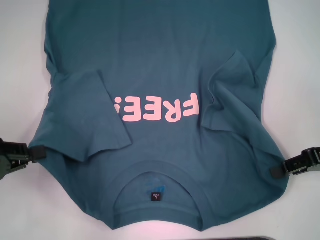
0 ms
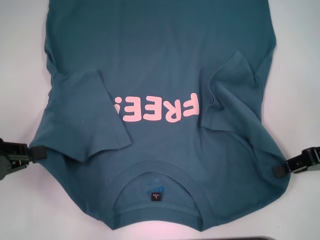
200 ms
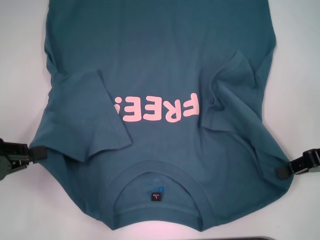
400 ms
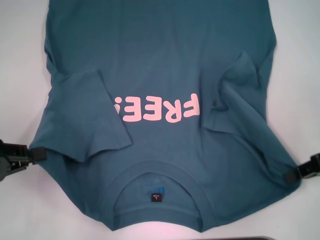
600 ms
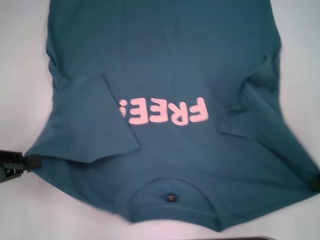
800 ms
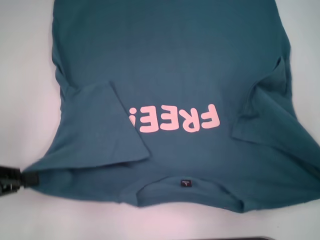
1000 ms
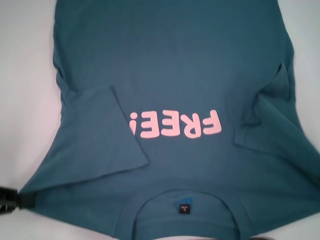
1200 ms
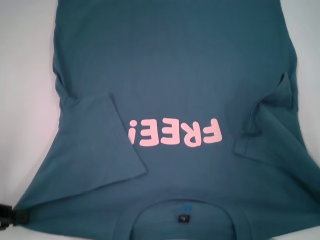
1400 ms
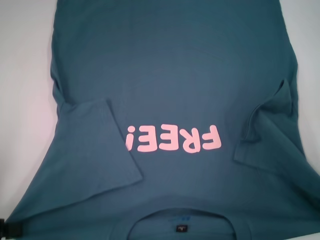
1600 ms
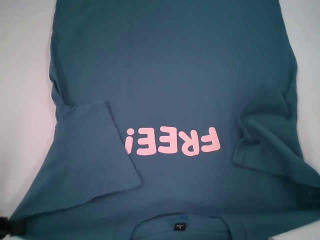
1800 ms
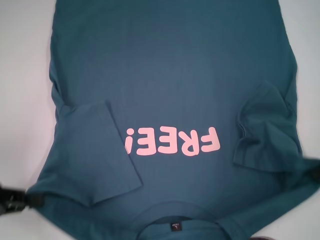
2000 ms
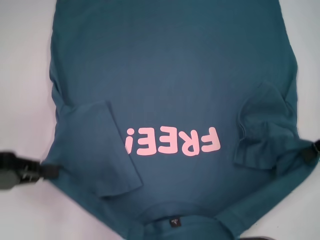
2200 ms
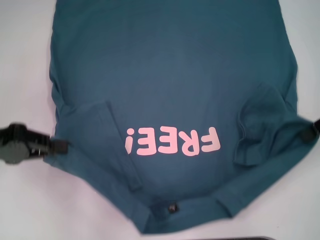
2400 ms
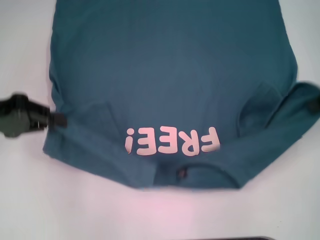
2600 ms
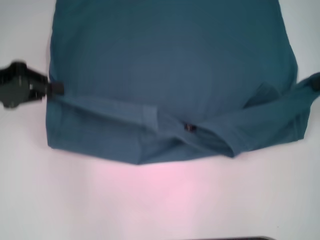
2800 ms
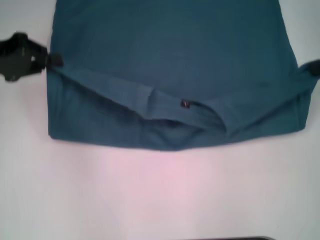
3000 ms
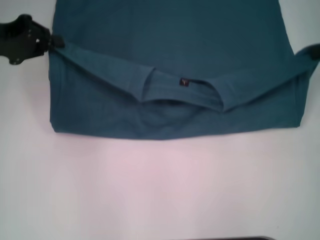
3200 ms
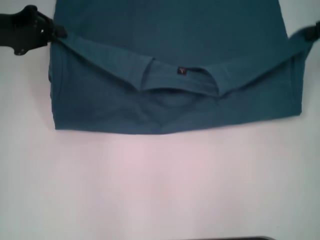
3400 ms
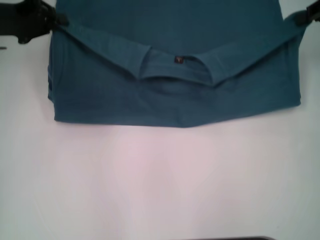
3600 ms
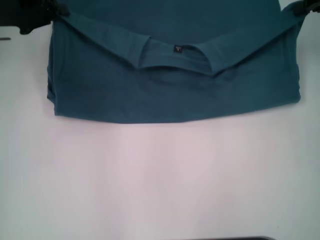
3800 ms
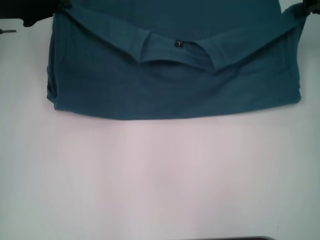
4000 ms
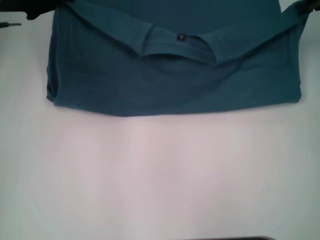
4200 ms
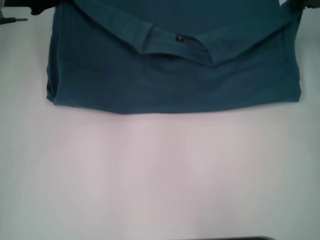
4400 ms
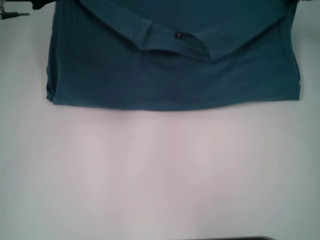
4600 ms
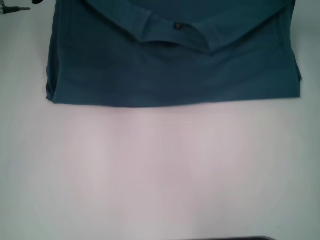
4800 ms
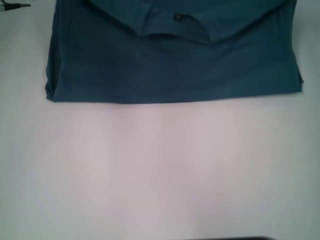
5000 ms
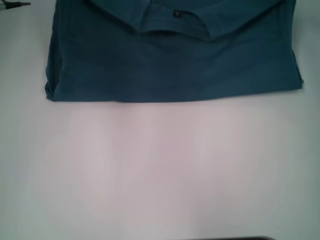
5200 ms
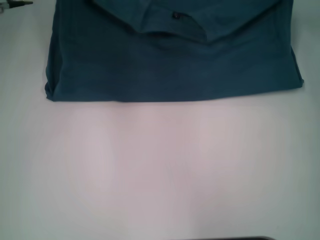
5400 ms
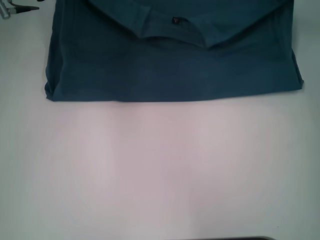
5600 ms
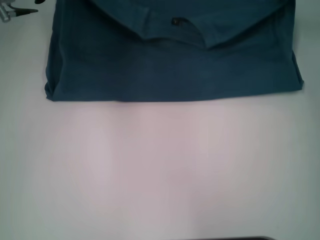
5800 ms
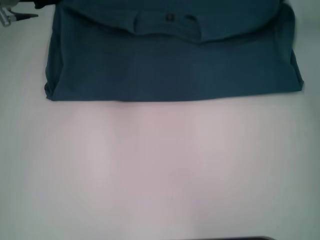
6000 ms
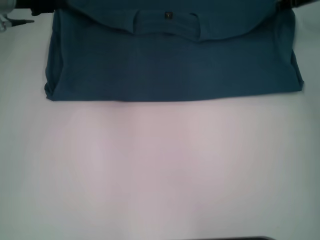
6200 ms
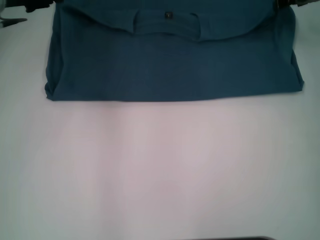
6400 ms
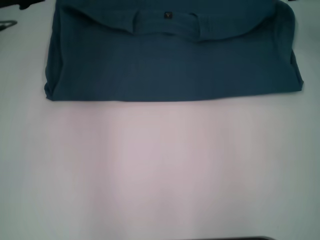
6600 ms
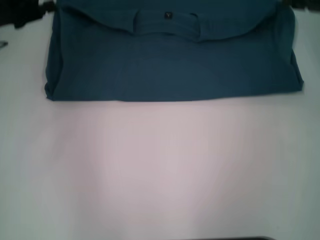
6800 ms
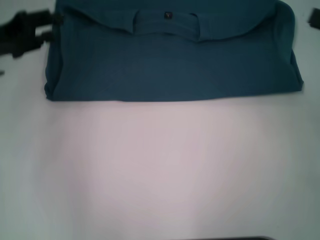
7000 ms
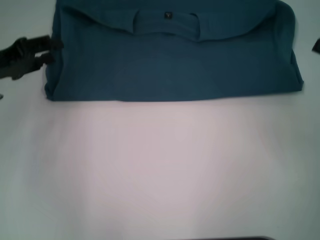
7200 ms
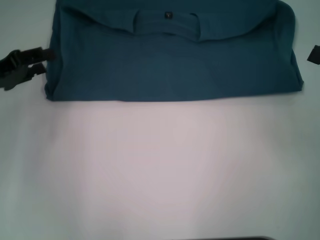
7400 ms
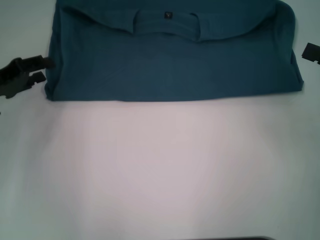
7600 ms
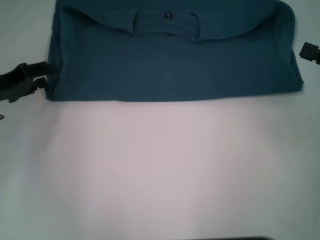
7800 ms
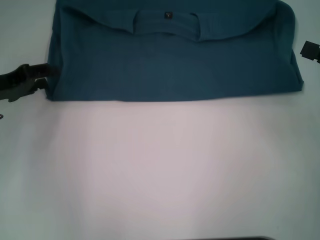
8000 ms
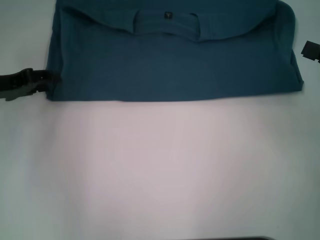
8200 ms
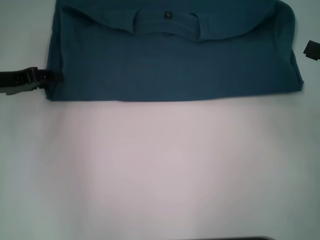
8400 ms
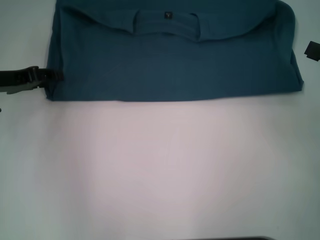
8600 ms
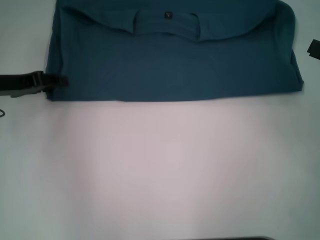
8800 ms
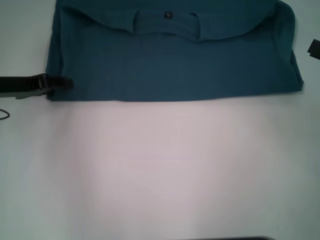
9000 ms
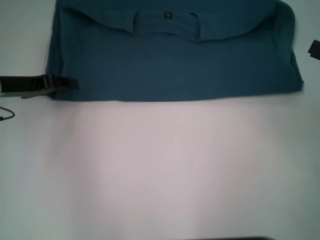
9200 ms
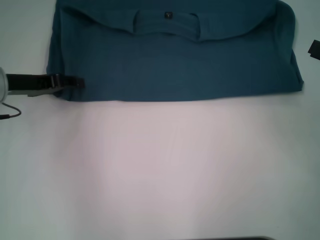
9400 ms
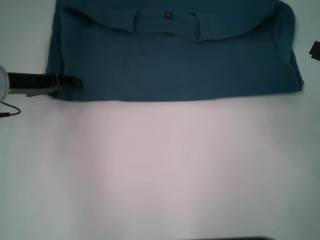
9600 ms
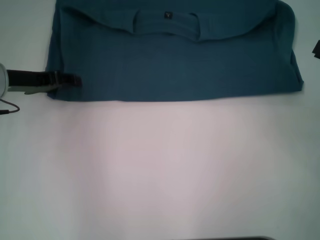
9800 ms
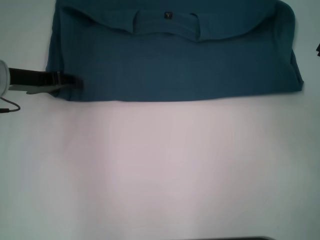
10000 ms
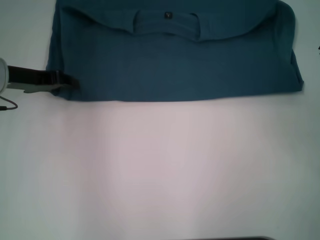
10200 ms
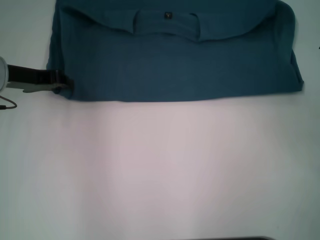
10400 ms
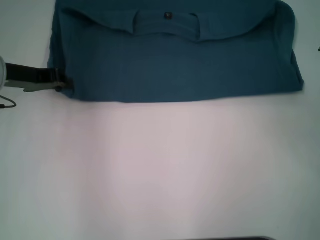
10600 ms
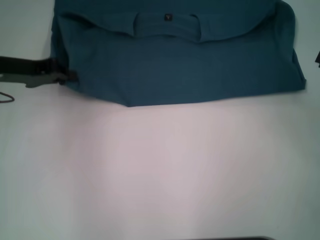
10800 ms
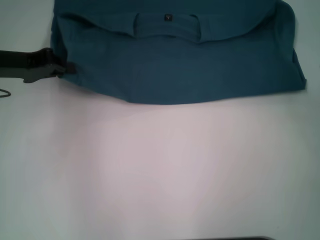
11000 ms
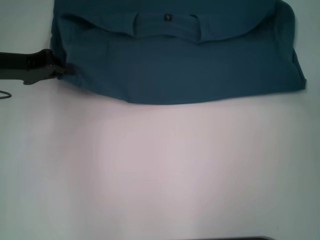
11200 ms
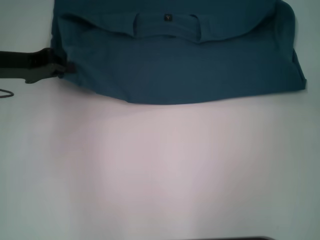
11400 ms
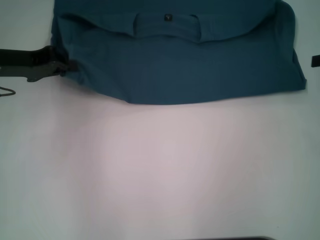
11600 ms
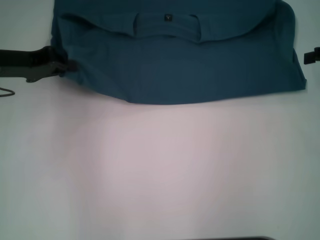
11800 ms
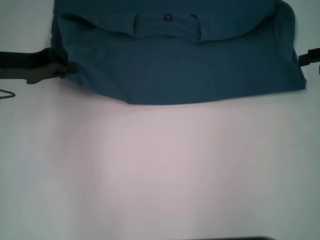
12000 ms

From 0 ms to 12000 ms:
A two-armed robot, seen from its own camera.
Step, from 800 ms to 6600 ms: Fold the clothes to the left.
Step, from 800 ms to 6600 ms: Fold the clothes to the right.
From 0 ms to 1600 ms: The left gripper shifts roughly 5 cm backward, while the right gripper ends up some 5 cm from where it was, and closes its fingers.
From 1600 ms to 3000 ms: Both grippers travel together forward and upward, roughly 20 cm.
From 3000 ms to 4400 ms: The right gripper moves forward, some 5 cm. Meanwhile the left gripper goes some 10 cm forward and to the right.
From 4400 ms to 6000 ms: The right gripper moves roughly 5 cm.
From 6000 ms to 7600 ms: The right gripper goes roughly 20 cm backward, and opens; the left gripper moves backward, downward and to the left, roughly 20 cm, and opens up.
From 9000 ms to 10400 ms: There are only small adjustments of the grippers.
From 10400 ms to 12000 ms: The right gripper is displaced forward by some 10 cm.

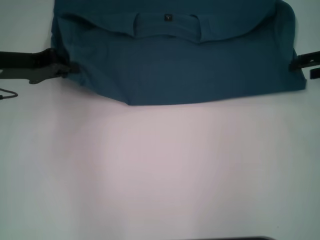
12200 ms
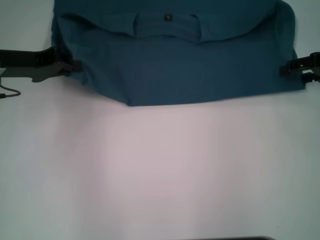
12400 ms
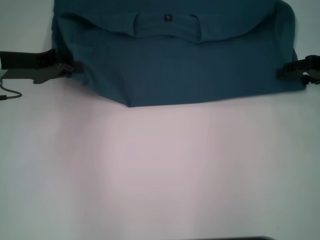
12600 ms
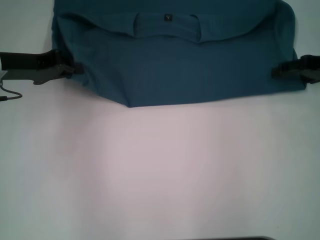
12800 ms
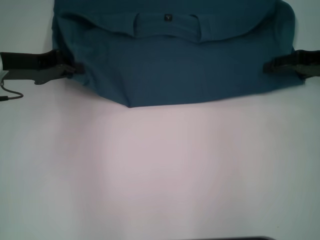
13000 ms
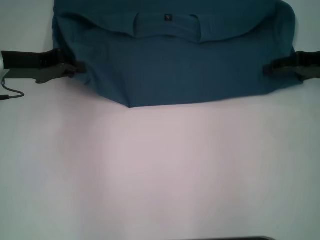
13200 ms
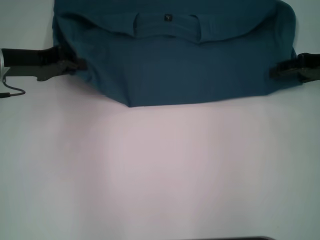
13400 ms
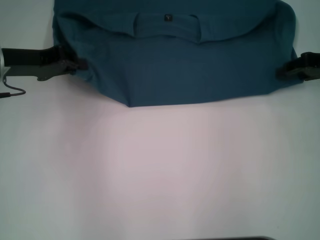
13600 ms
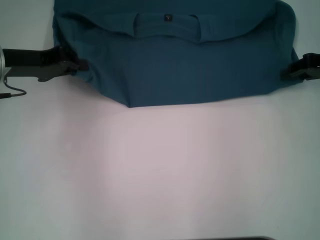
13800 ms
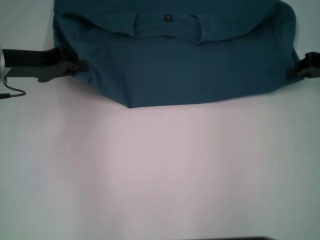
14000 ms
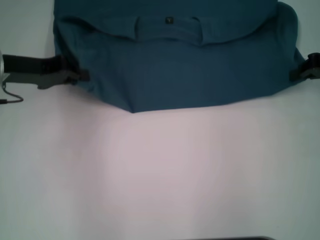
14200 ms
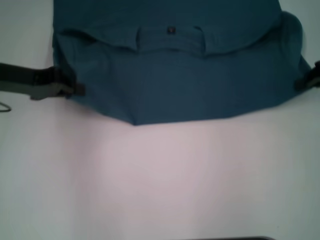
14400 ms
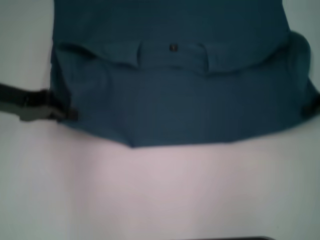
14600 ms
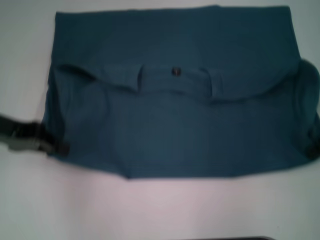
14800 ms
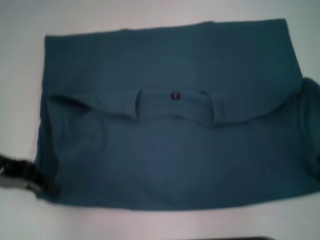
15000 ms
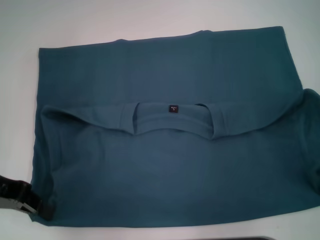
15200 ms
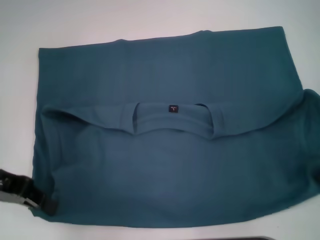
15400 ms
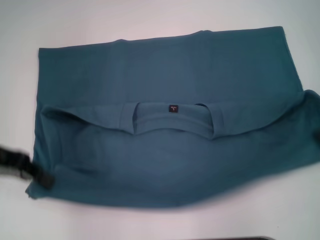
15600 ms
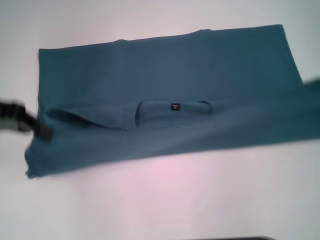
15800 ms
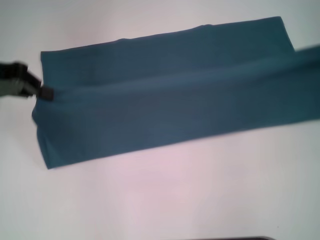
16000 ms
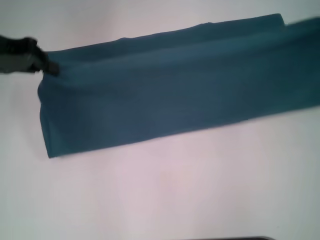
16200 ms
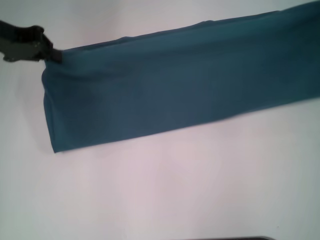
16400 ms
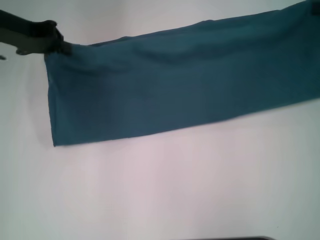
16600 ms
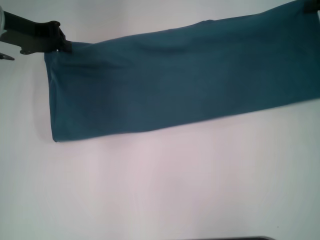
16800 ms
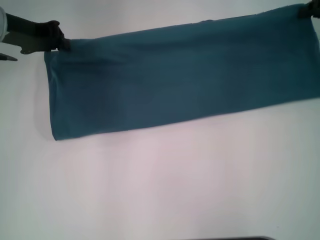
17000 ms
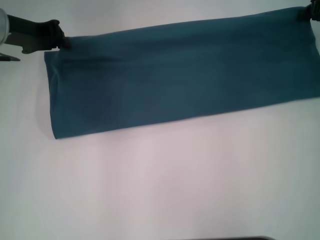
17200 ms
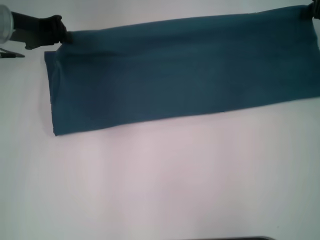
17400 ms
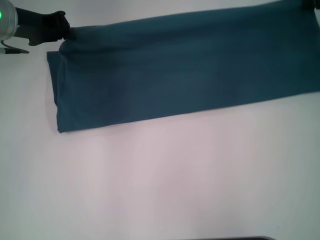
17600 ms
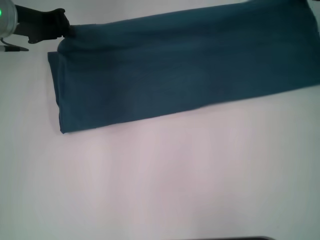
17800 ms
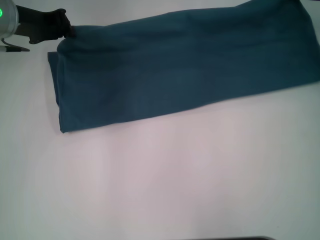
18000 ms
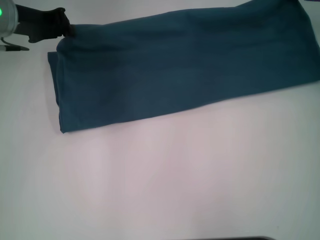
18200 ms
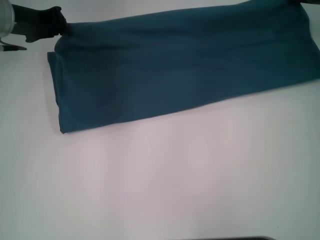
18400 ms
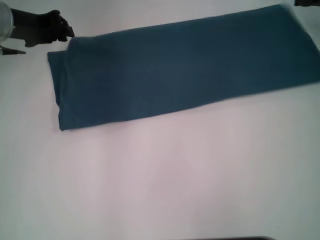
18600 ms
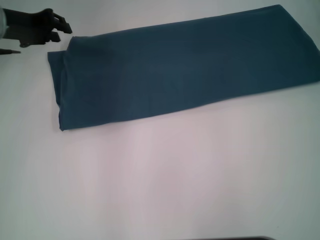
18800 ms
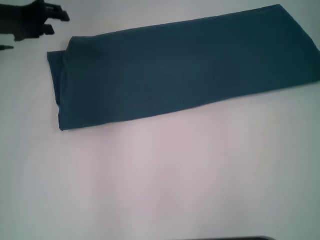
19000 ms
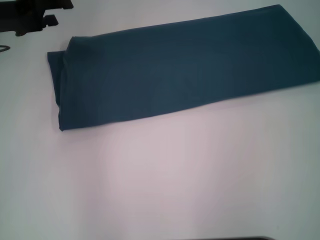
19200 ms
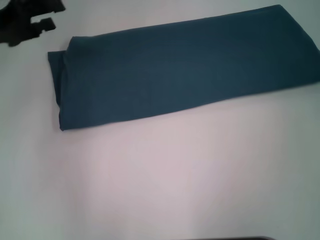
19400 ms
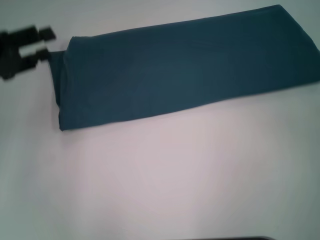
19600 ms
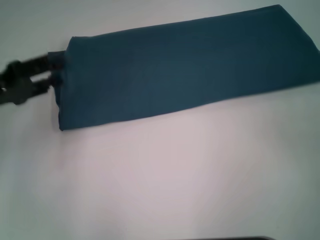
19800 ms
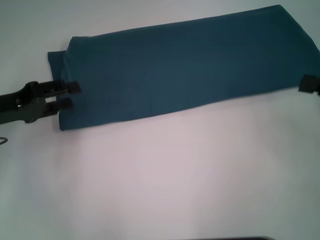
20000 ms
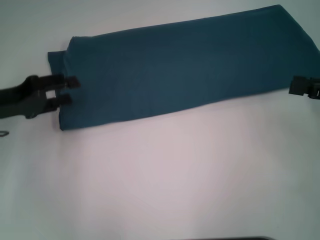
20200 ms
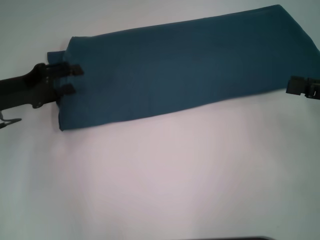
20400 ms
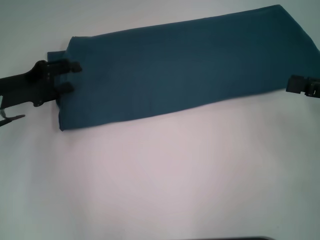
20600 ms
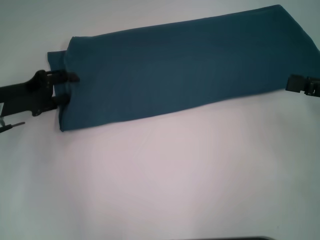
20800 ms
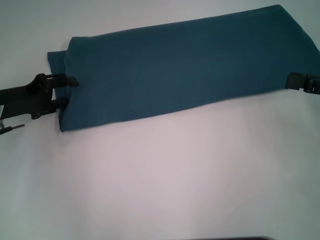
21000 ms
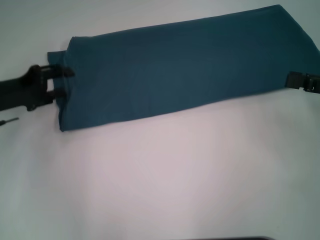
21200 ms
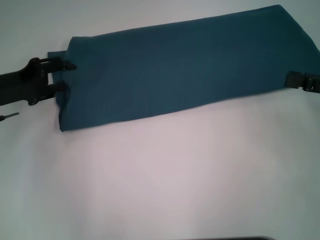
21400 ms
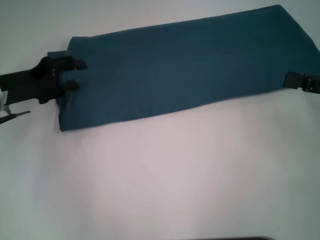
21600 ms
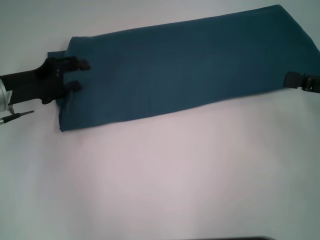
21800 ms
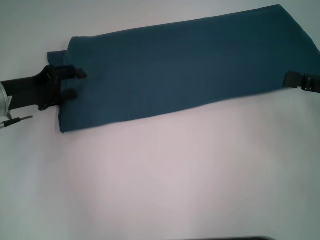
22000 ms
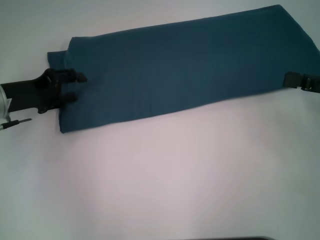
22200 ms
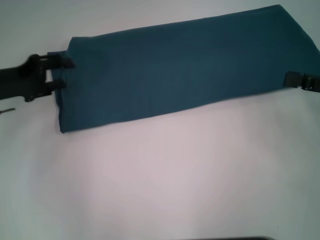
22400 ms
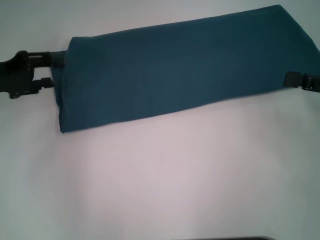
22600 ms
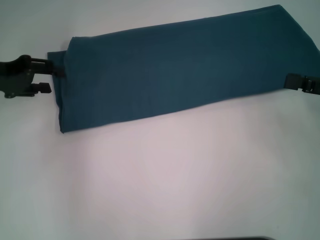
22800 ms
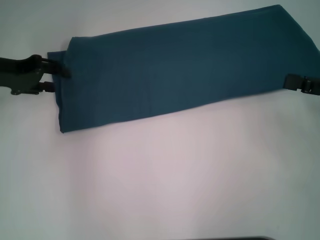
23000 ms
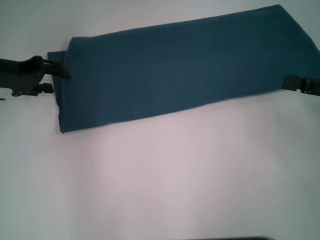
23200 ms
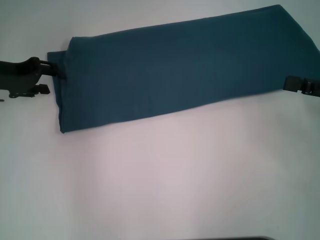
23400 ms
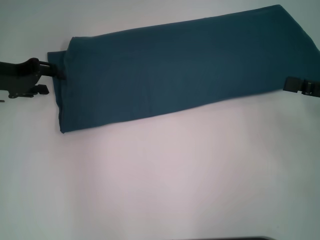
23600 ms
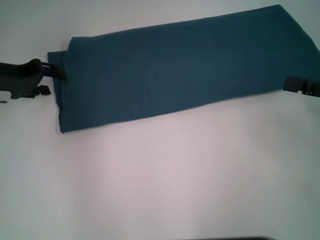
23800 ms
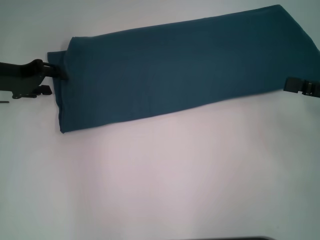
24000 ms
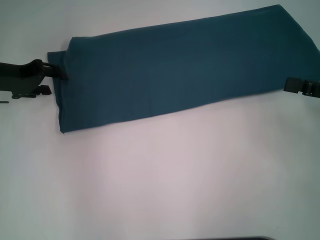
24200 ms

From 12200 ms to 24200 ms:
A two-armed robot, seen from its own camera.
Step, from 12200 ms to 15200 ms: Pull the clothes with your left hand.
Step, from 12200 ms to 15200 ms: Pull the clothes with your right hand.
Step, from 15400 ms to 18600 ms: Fold the clothes to the left.
Step, from 15400 ms to 18600 ms: Fold the clothes to the right.
From 12200 ms to 13800 ms: The right gripper closes.
From 13800 ms to 15200 ms: Both grippers travel together backward, approximately 10 cm. The right gripper closes its fingers.
From 15200 ms to 16600 ms: The two grippers go some 15 cm forward and upward.
From 16600 ms to 18200 ms: The right gripper goes some 10 cm forward, to the left and downward.
From 18200 ms to 19800 ms: The right gripper is displaced backward by roughly 20 cm, and opens. The left gripper moves backward and to the left, roughly 15 cm, and opens.
From 19800 ms to 21200 ms: The left gripper changes place by about 5 cm.
From 21200 ms to 22600 ms: The grippers stay close to where they were, moving slightly.
From 22600 ms to 24200 ms: The grippers make only small movements.
